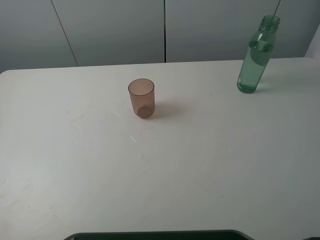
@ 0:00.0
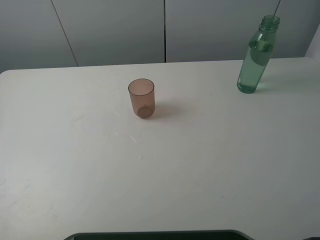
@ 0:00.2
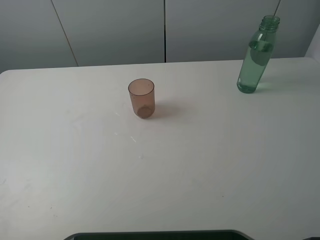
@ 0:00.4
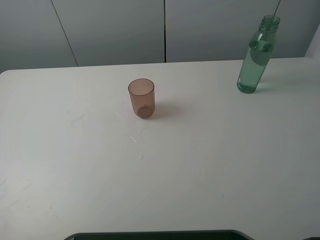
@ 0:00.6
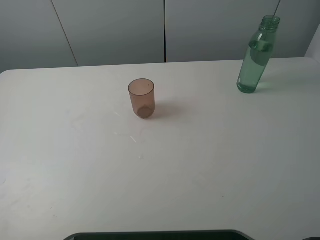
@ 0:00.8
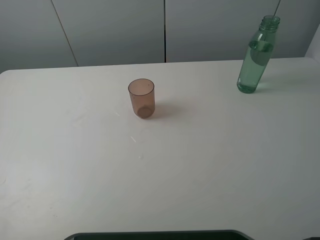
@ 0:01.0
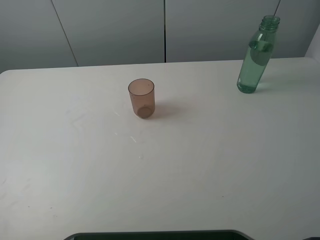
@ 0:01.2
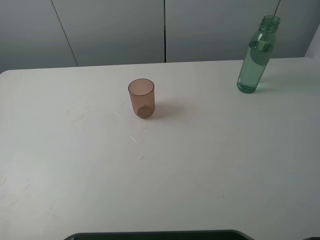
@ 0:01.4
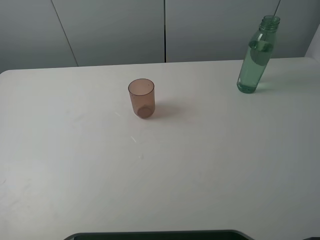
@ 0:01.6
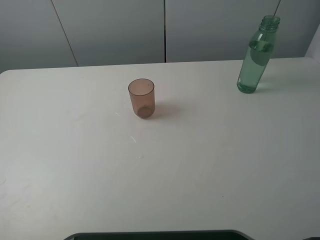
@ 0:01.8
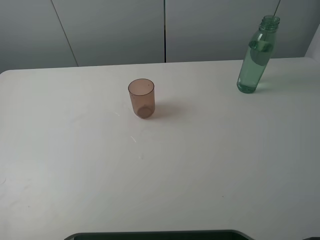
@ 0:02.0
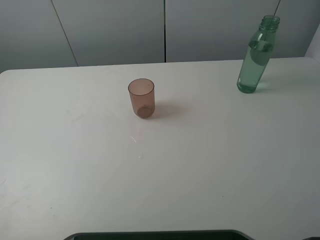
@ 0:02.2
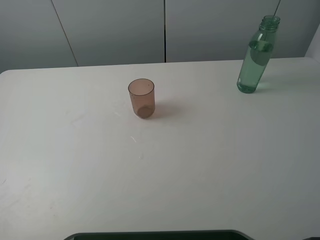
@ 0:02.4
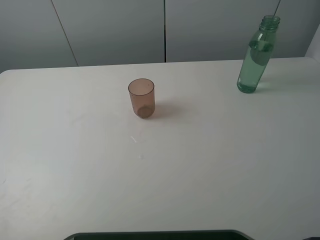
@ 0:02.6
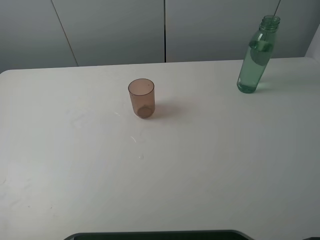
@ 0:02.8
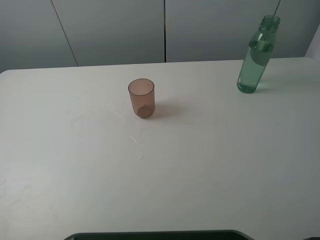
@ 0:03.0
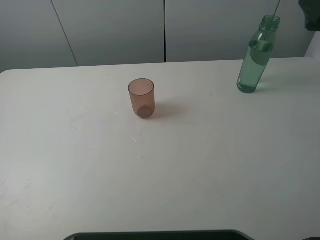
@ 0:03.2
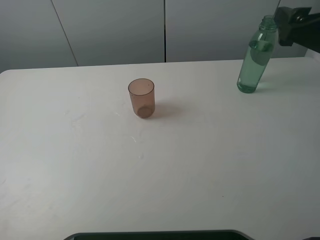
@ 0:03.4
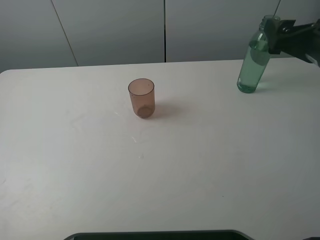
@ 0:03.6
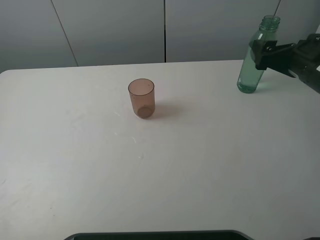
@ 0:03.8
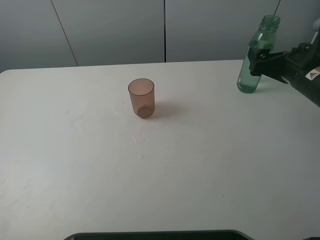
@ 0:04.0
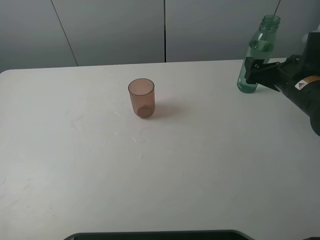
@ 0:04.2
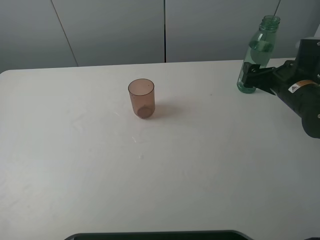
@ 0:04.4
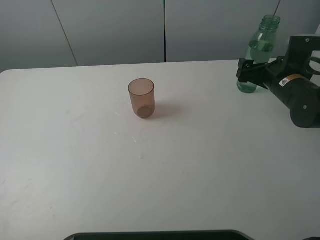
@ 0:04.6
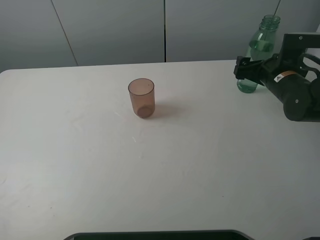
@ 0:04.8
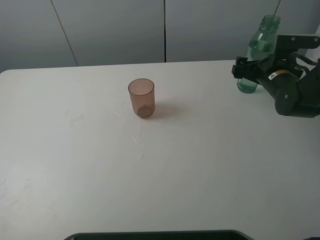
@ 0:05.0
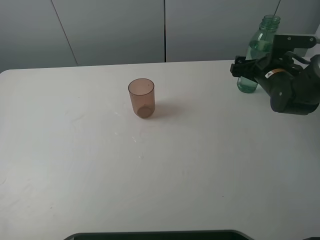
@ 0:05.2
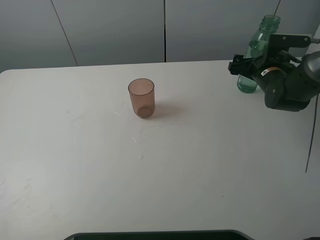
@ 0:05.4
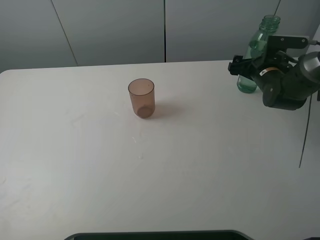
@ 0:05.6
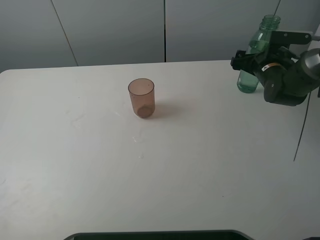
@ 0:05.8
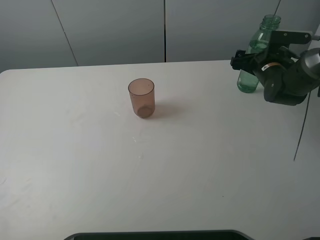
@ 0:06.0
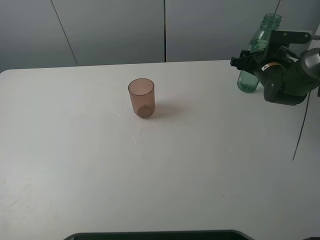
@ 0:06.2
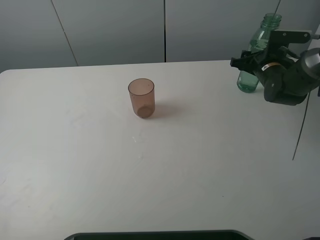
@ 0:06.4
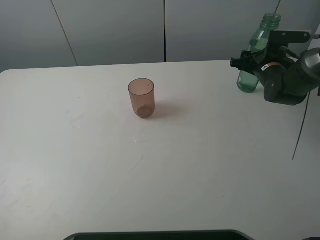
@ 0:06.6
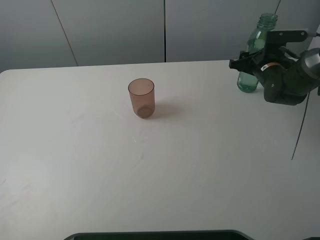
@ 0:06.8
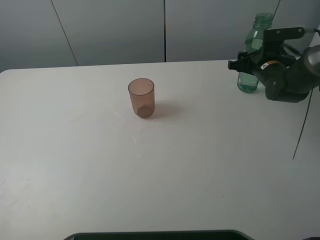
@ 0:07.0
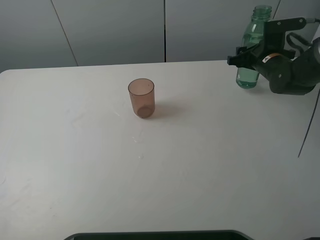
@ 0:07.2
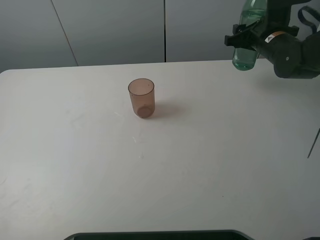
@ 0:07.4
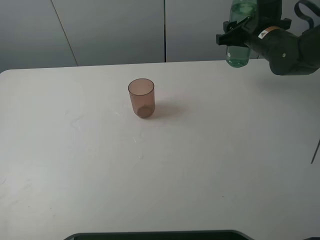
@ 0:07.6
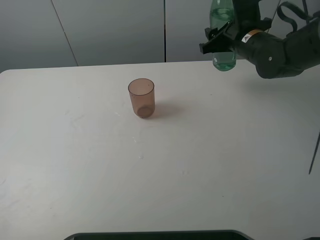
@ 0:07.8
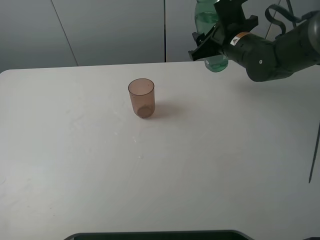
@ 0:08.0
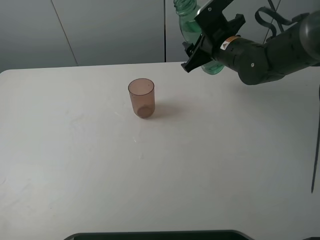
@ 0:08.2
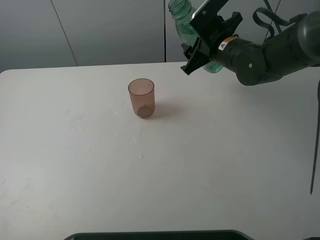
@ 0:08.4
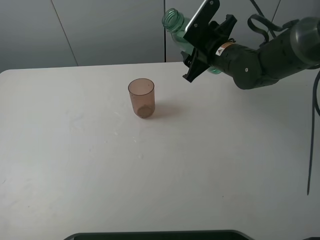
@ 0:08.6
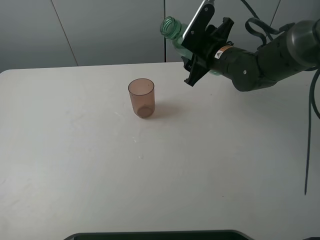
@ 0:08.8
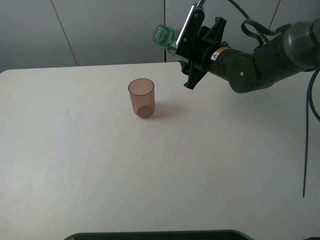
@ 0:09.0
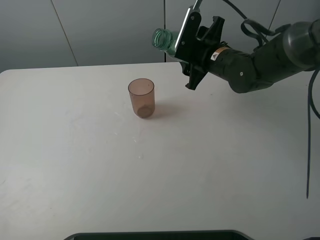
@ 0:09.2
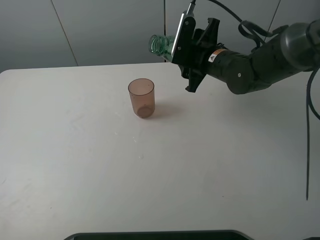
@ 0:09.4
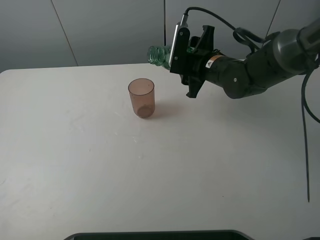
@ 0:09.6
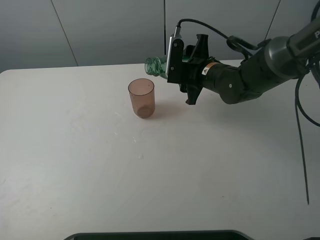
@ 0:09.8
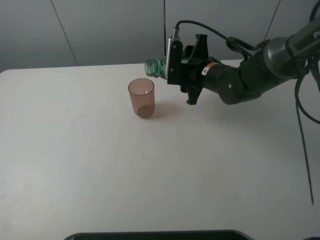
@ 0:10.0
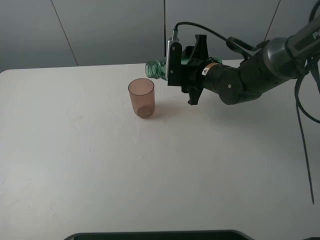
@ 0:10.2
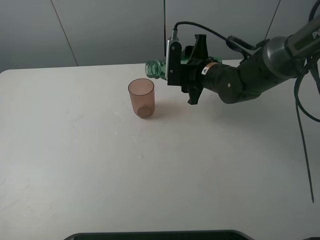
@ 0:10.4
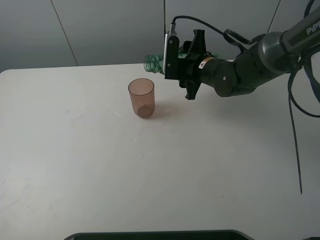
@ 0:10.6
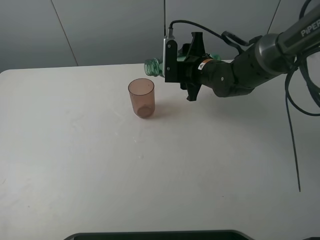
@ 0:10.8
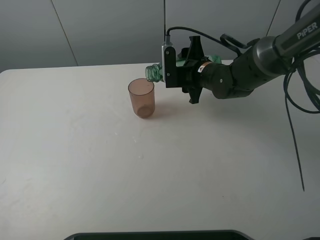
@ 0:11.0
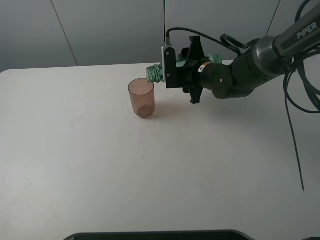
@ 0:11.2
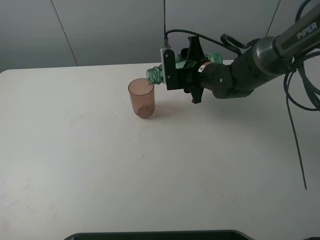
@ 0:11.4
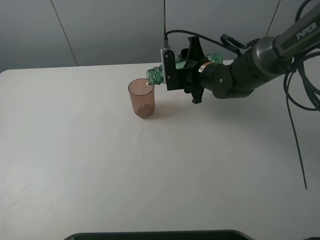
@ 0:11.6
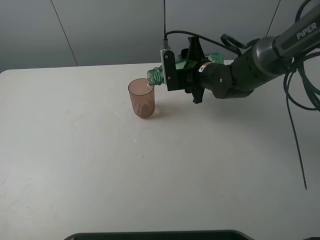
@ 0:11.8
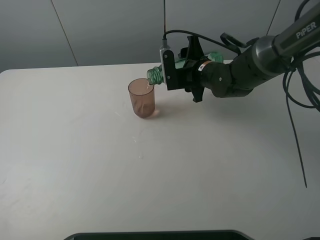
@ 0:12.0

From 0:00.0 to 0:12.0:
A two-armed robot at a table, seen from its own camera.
Task of the whole recording: pick up the bottle filled with water and pour it into the pink cup.
Step, from 0:00.0 to 0:06.6: Grasp the green bottle with the right gripper.
From 0:00.0 to 0:01.6: Neither gripper changes place.
From 0:03.0 to 0:04.4: The right gripper heads downward and forward, covering about 20 cm.
From 0:04.4 to 0:06.0: The right gripper travels forward by roughly 10 cm.
From 0:06.0 to 0:07.6: The right gripper moves upward and to the left, some 10 cm, and closes up.
From 0:07.6 to 0:09.0: The right gripper is displaced to the left by approximately 10 cm.
From 0:09.0 to 0:10.4: The grippers stay close to where they were, moving slightly.
From 0:10.4 to 0:12.0: There are only small adjustments of the grippers.

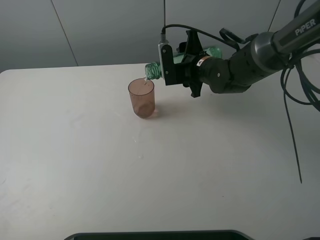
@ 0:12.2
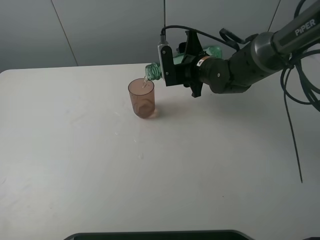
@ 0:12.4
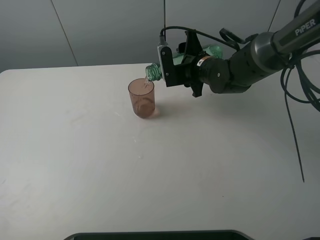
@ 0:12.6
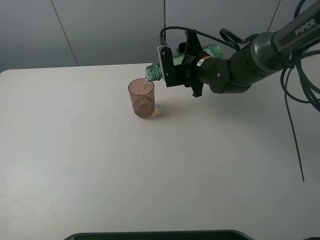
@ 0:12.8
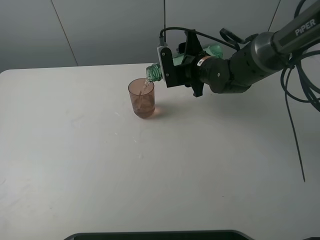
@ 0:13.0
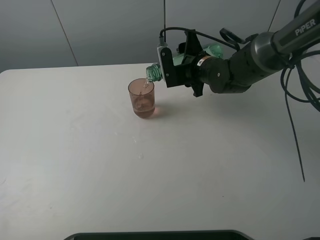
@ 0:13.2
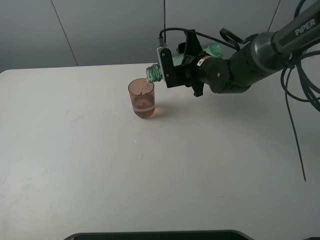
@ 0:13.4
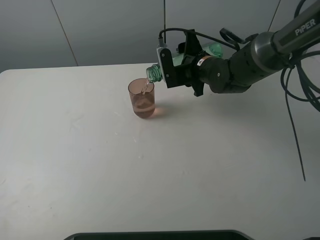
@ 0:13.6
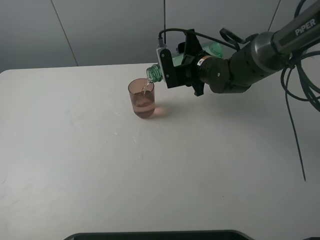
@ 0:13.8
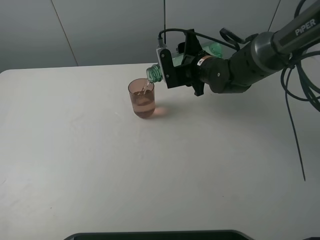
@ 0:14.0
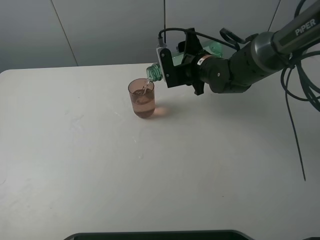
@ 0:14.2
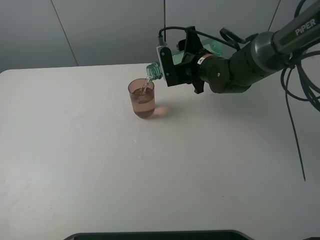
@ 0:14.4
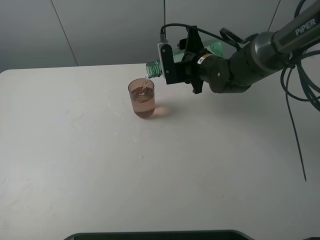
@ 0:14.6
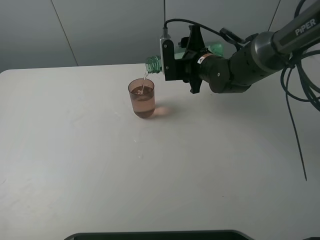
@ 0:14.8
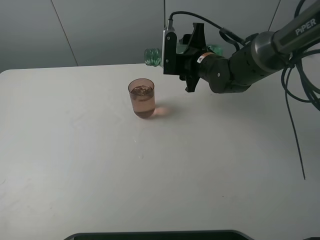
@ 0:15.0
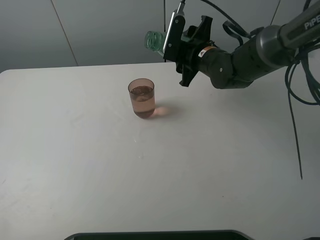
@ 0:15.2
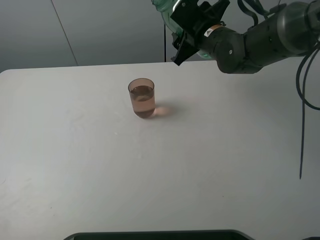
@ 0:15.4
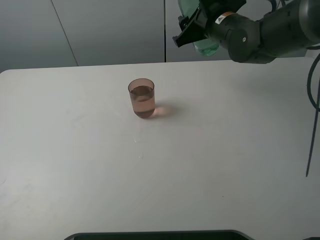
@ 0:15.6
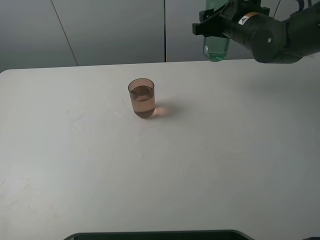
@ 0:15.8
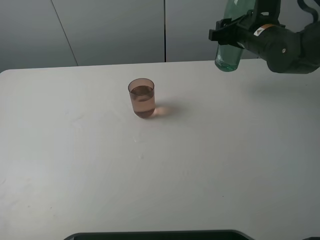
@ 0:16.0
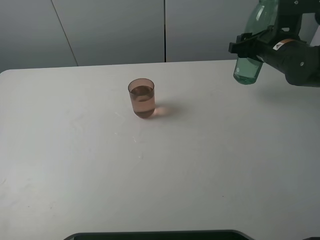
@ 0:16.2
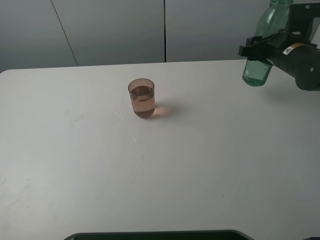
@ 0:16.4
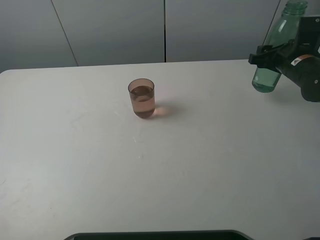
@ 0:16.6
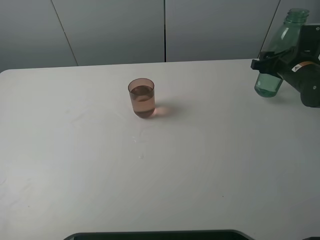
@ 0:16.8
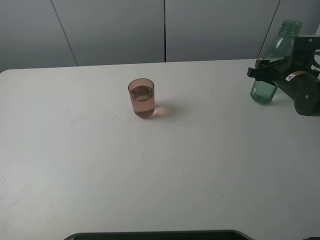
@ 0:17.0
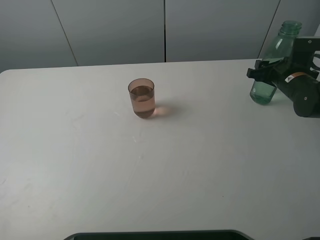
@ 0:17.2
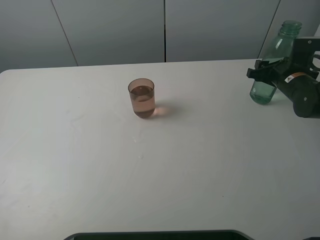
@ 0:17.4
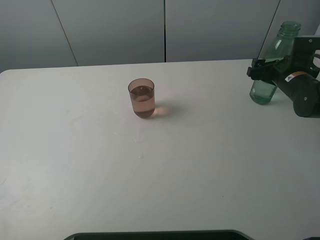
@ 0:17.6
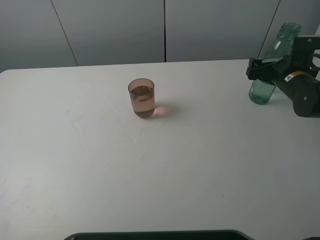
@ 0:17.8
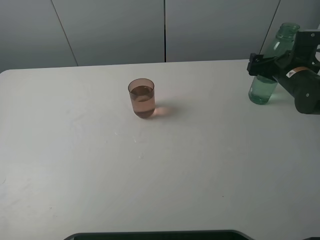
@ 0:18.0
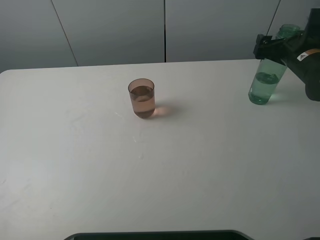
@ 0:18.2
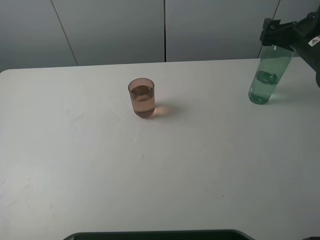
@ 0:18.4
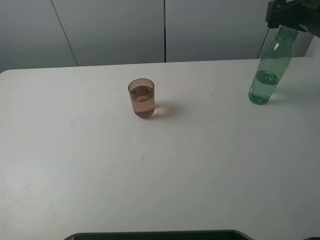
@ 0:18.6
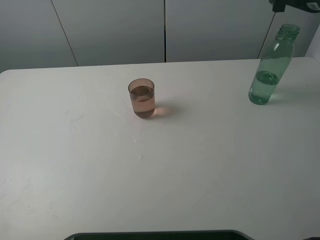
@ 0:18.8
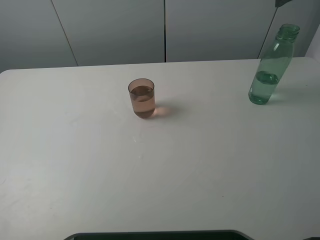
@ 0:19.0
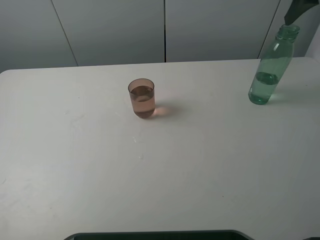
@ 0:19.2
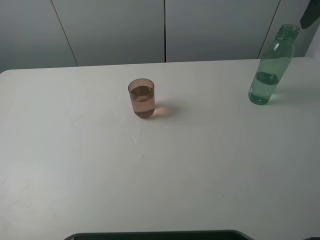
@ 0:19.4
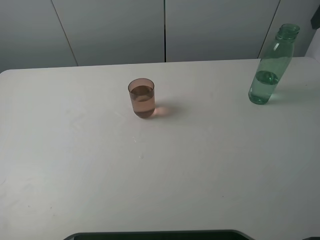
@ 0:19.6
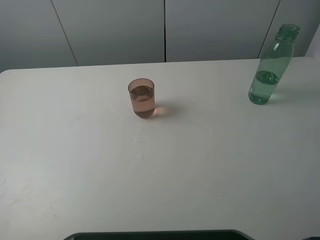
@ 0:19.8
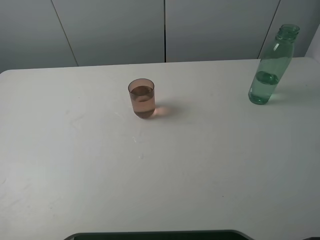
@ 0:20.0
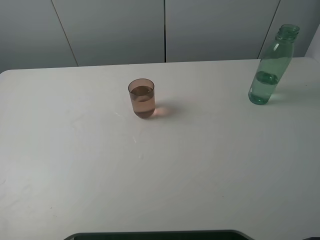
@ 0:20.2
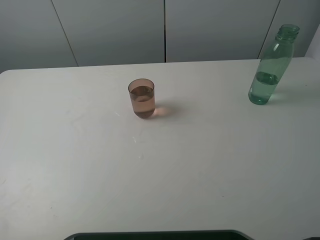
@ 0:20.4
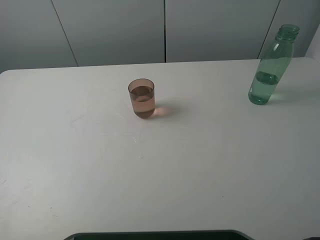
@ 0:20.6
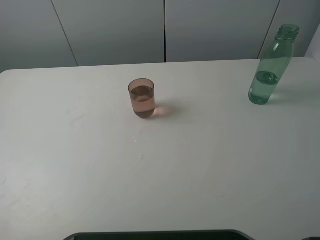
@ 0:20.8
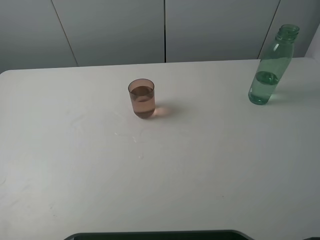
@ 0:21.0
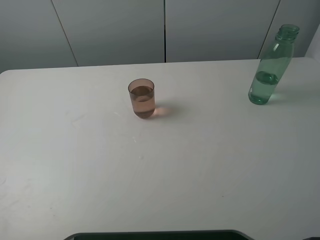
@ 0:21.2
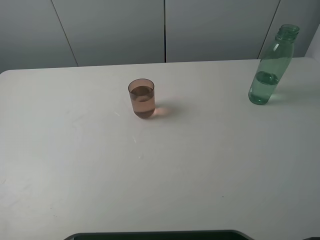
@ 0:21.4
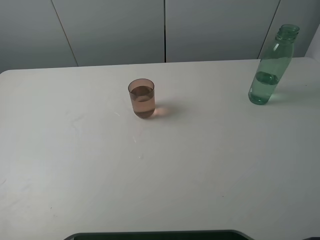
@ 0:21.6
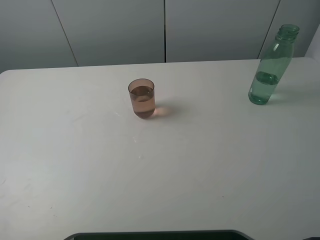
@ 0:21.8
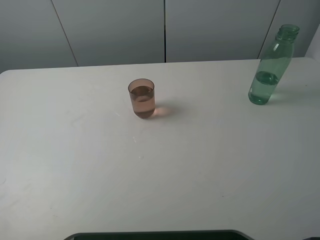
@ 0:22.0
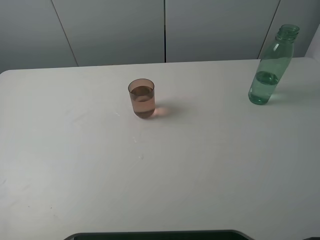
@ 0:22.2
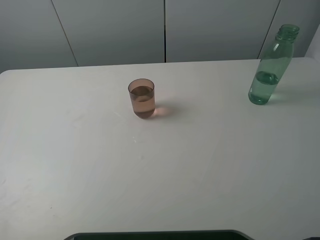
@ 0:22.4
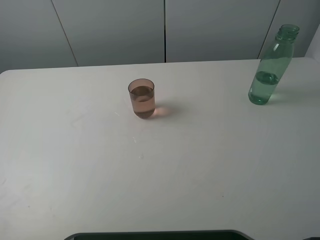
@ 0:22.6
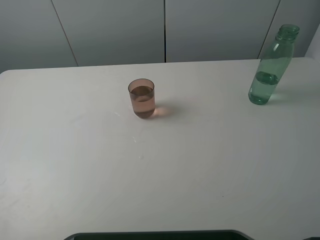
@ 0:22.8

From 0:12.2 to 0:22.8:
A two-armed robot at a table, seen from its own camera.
Task of the whole recording: pick up the bottle filled with water and pour it into the pink cup.
Step, from 0:12.2 to 0:15.0: Pour water from green bottle to pink cup with the right gripper.
Step, from 0:15.2 to 0:18.2: Place the green bottle with the right gripper.
From 0:12.2 to 0:13.8: The grippers stay close to where they were, moving slightly.
From 0:15.2 to 0:16.8: The right gripper moves to the right, approximately 20 cm.
From 0:16.8 to 0:18.2: The right gripper opens its fingers.
From 0:18.2 to 0:19.8: The right gripper moves upward and backward, about 25 cm.
From 0:21.2 to 0:22.8: Both grippers stay about where they are.
